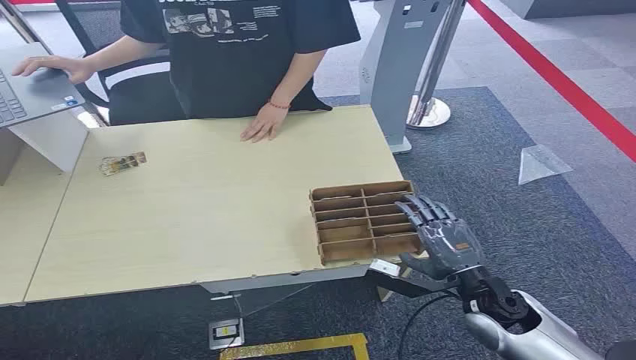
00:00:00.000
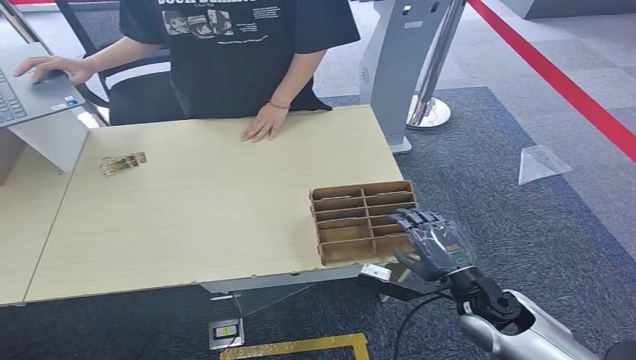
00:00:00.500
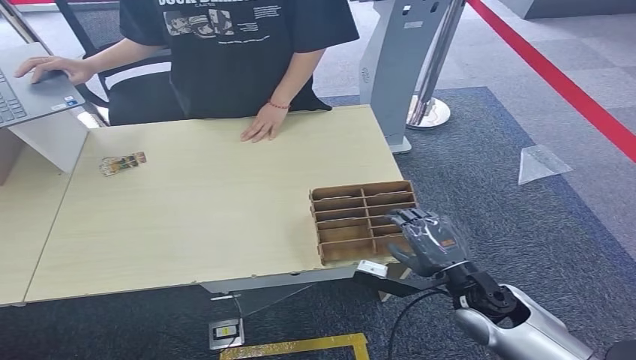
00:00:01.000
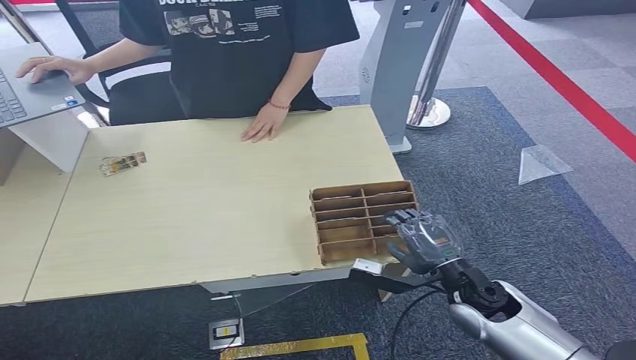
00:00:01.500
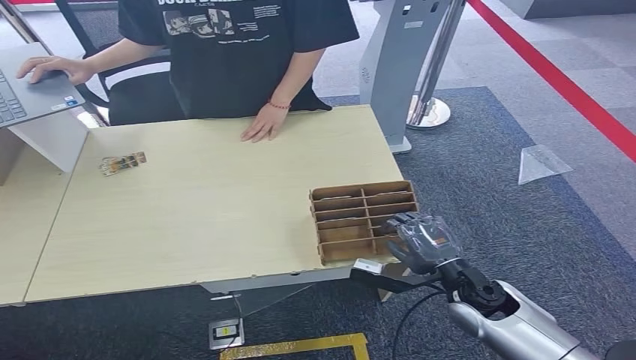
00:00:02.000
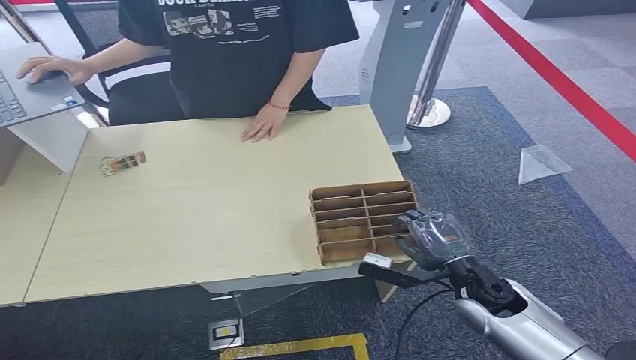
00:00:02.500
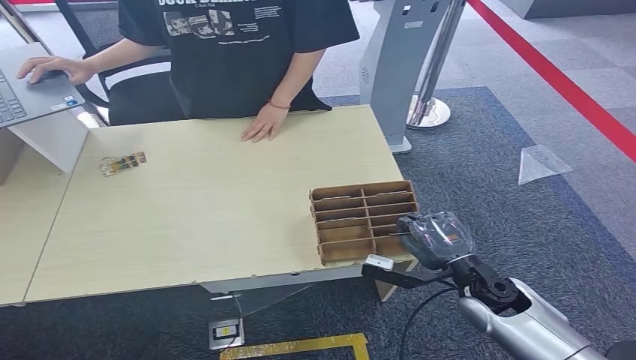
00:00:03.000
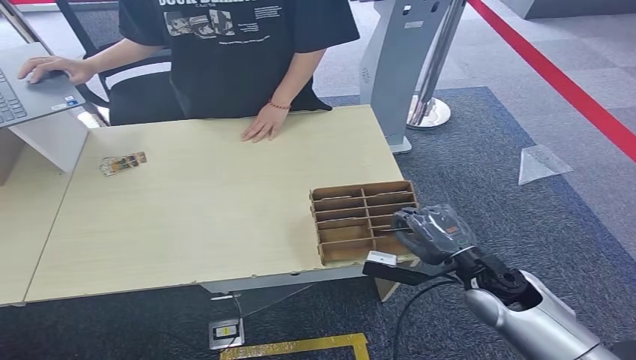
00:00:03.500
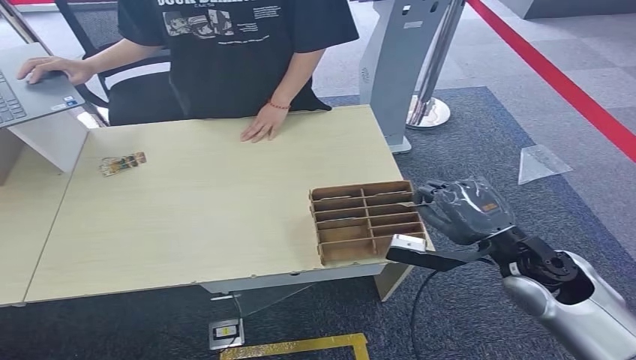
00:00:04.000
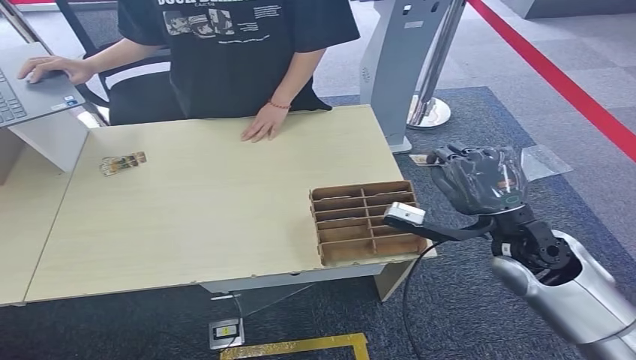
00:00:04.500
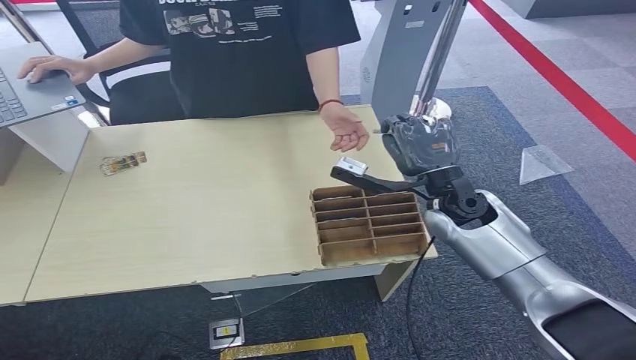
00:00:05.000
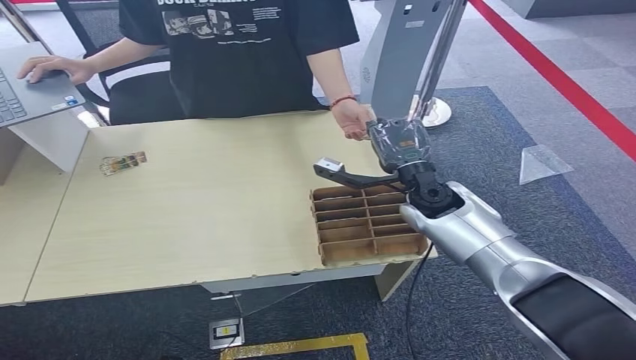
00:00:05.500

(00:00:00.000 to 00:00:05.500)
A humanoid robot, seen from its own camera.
Step, 00:00:00.000 - 00:00:04.500: Pick up the key card from the card box.
Step, 00:00:05.000 - 00:00:05.500: Hand the key card to the target.
00:00:02.000 - 00:00:03.500: The hands move only a little.
00:00:03.500 - 00:00:05.500: The right hand heads forward, upward and to the left, covering some 20 cm.
